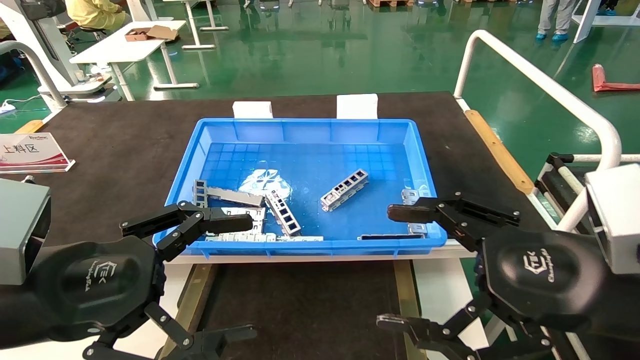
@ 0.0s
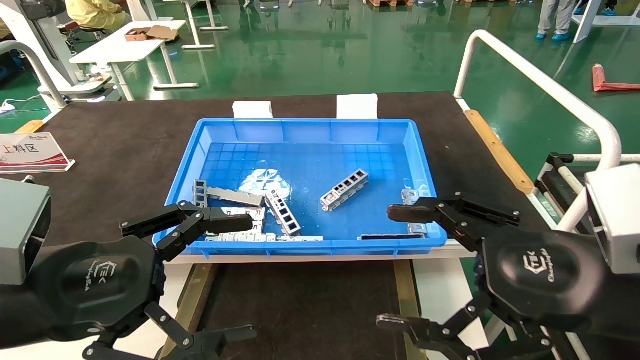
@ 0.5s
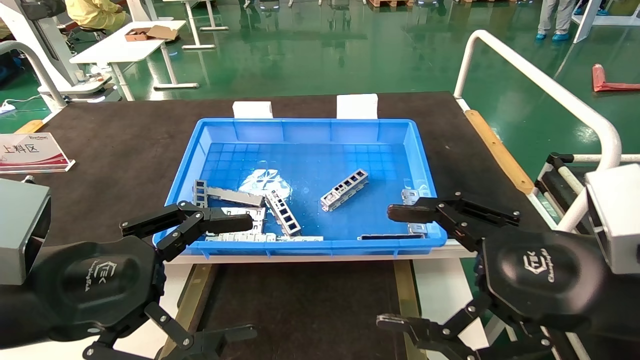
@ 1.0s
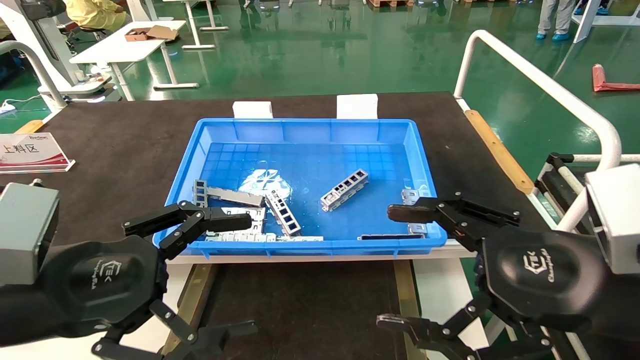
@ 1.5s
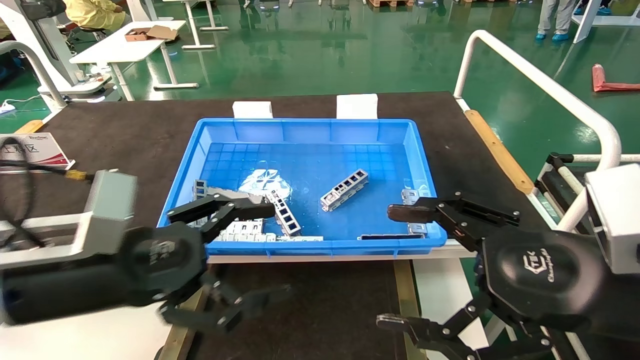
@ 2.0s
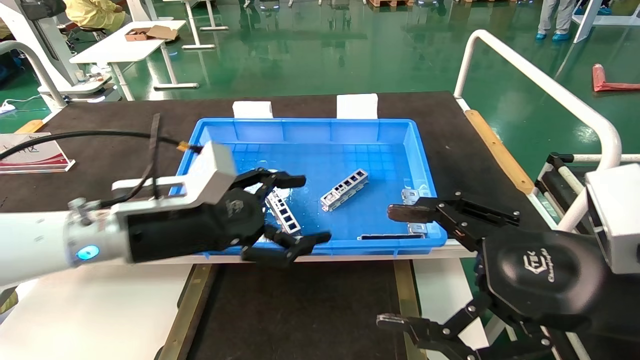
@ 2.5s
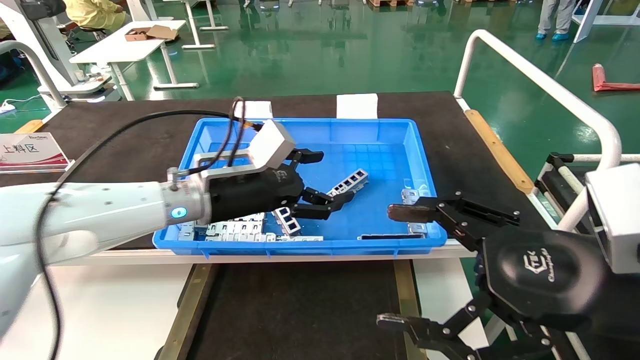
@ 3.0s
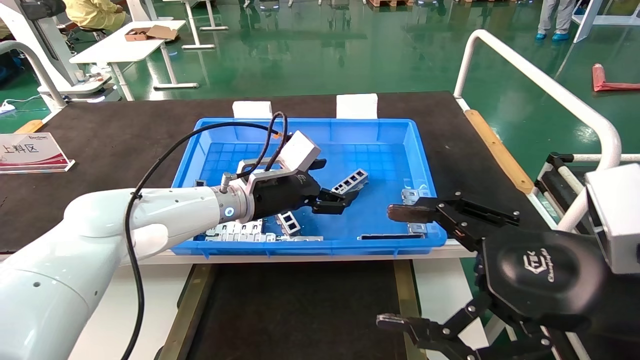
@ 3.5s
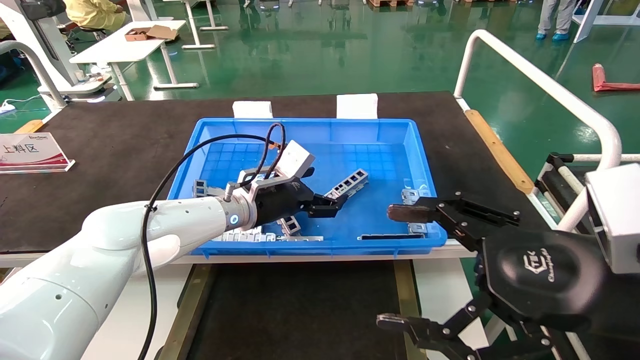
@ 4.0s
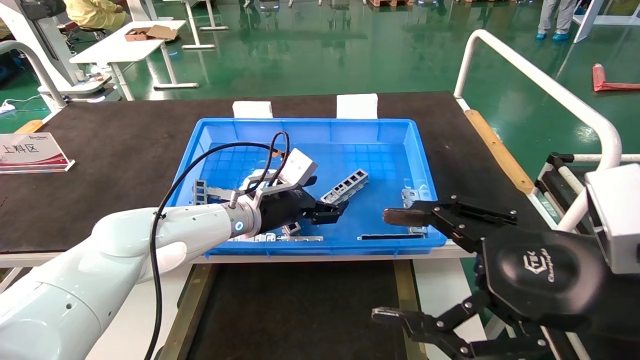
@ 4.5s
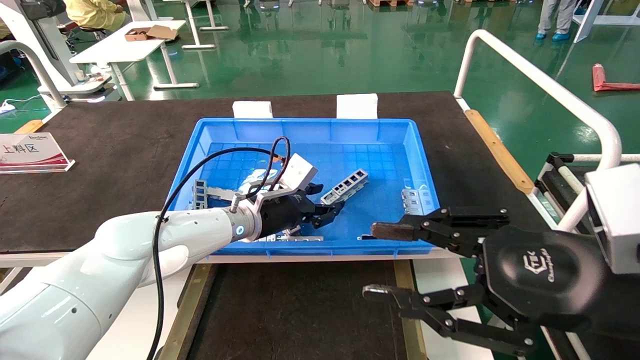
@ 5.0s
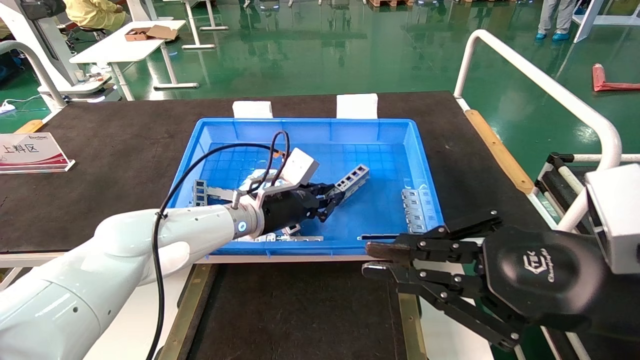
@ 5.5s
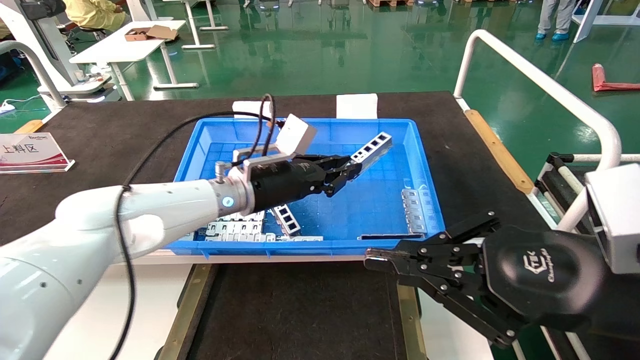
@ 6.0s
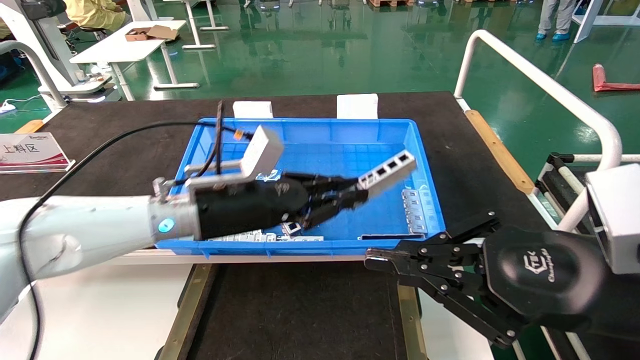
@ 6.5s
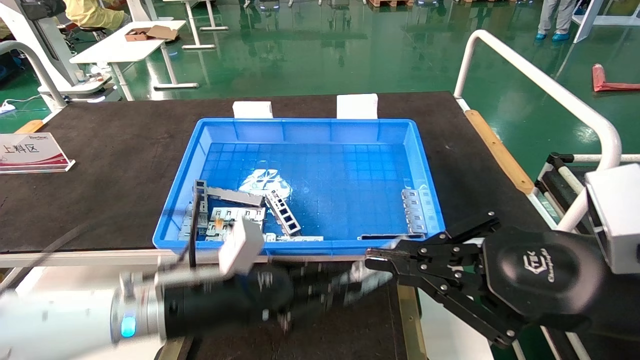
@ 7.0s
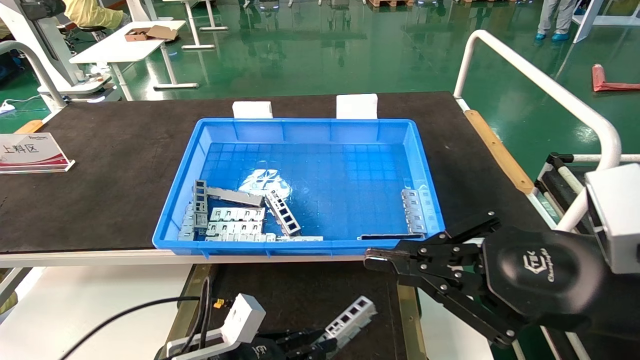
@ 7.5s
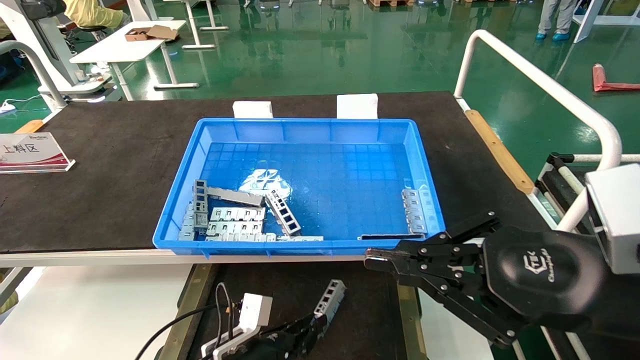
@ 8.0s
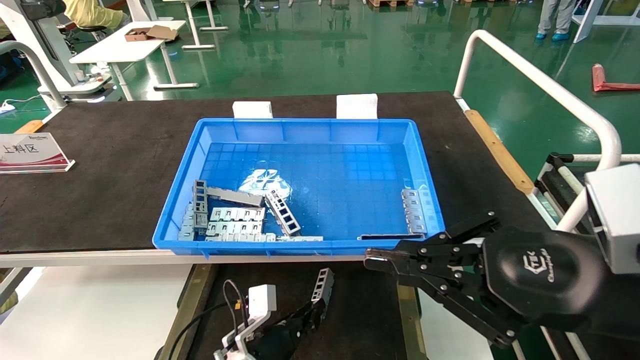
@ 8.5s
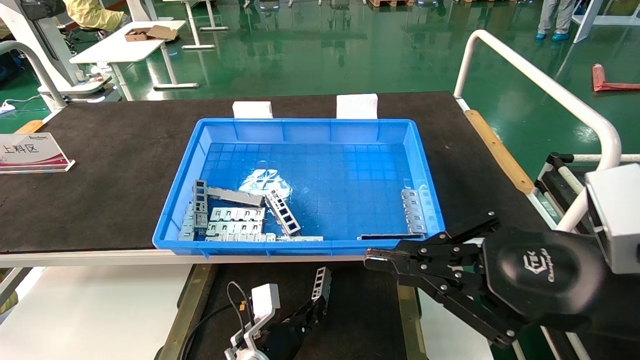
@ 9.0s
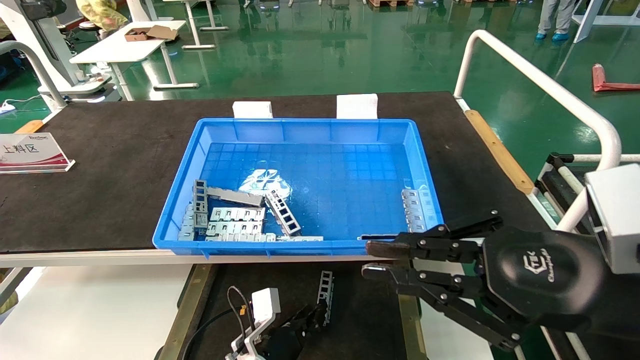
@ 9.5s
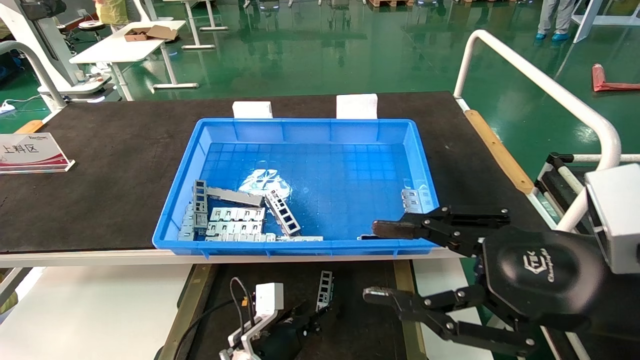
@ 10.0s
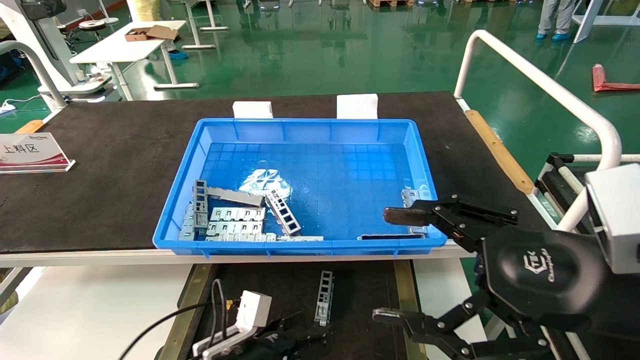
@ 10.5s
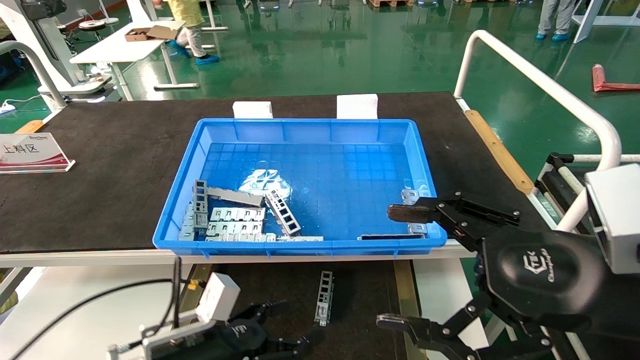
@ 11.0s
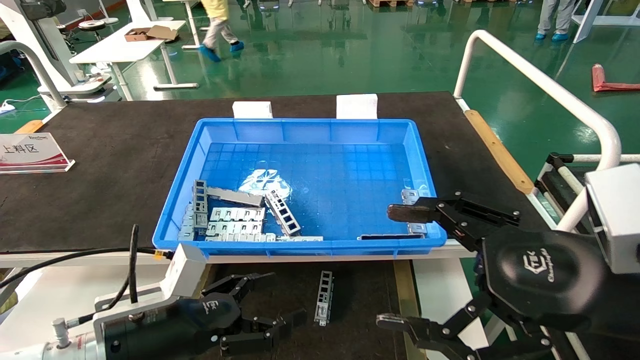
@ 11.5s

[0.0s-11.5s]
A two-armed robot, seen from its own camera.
Task of the whole recording: Grasp the part with one hand and place it on the black container.
Step, 2.0s to 6.0s: Pick up the front USB bracket from the feeding area.
Step, 6.5s to 9.5s: Place the front USB bracket into the box.
0.0s to 2.0s: The left gripper moves forward, some 5 cm.
2.0s to 4.0s: The left gripper travels forward and to the right by roughly 25 cm.
4.0s to 6.0s: The left gripper closes its fingers. Meanwhile the right gripper closes its fingers.
6.0s to 7.5s: The left gripper goes roughly 25 cm downward and backward.
7.5s to 9.5s: The left gripper travels downward, forward and to the right by roughly 15 cm.
9.5s to 11.5s: The right gripper opens, while the left gripper travels upward, to the left and backward by about 25 cm, and opens its fingers.

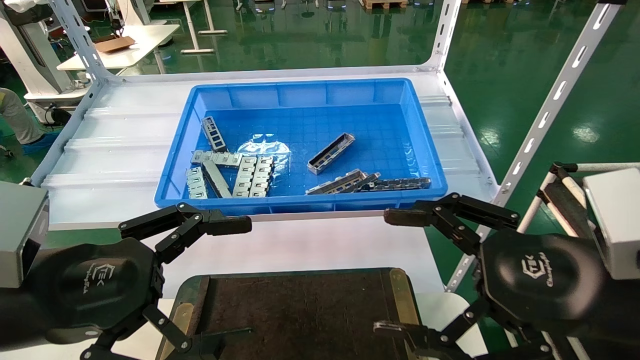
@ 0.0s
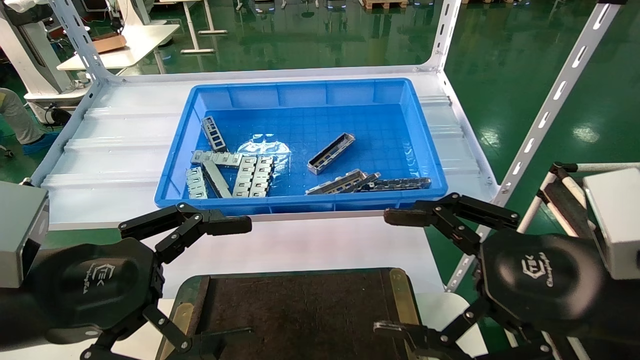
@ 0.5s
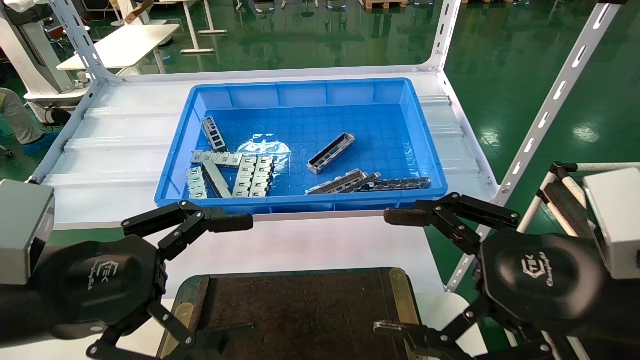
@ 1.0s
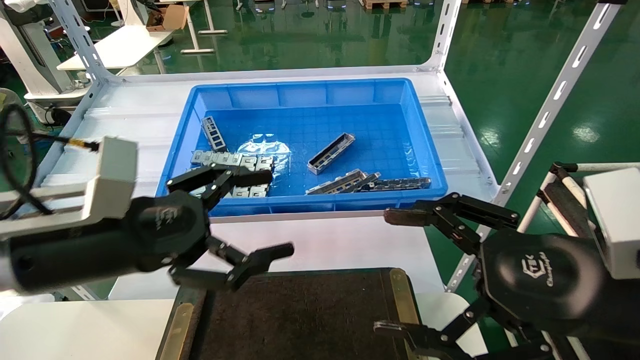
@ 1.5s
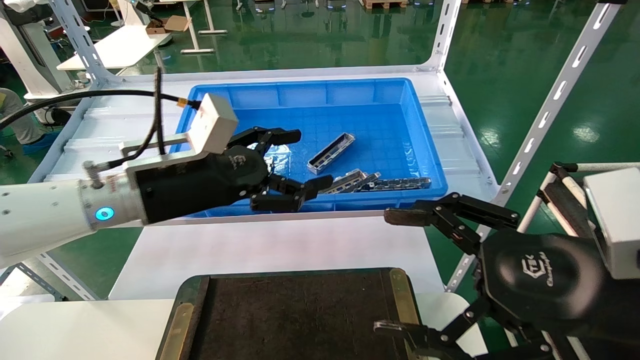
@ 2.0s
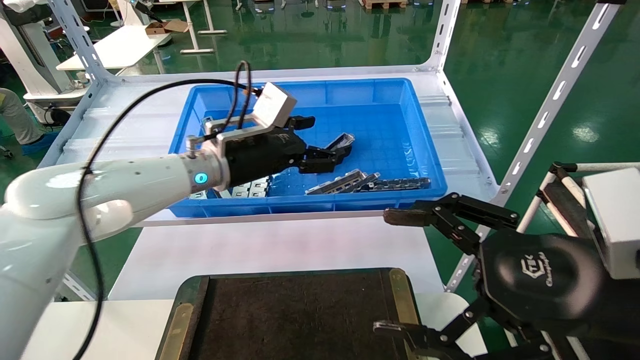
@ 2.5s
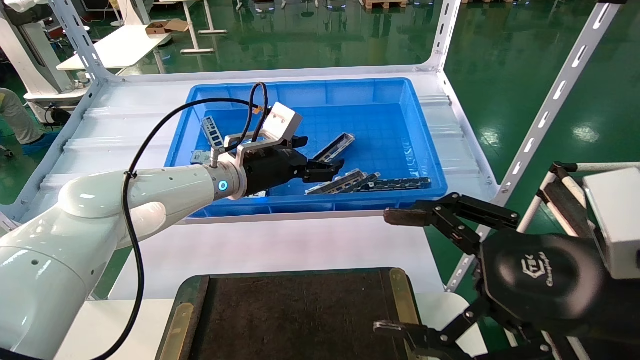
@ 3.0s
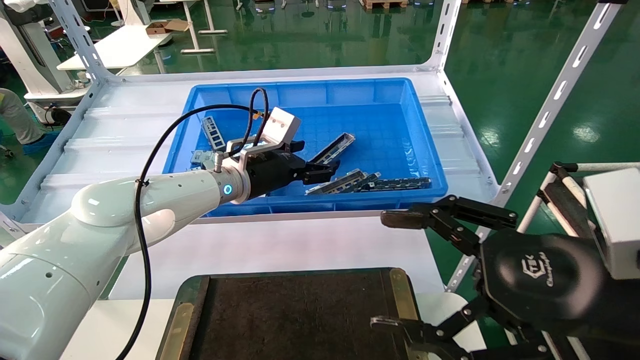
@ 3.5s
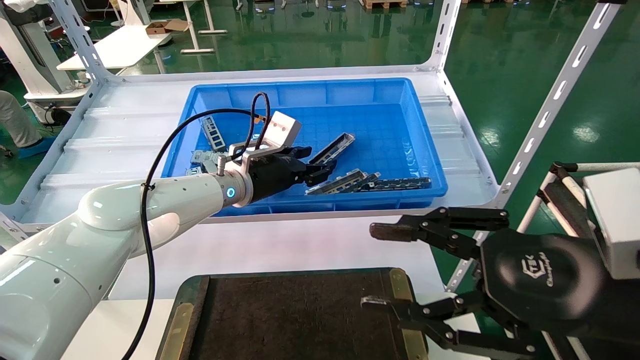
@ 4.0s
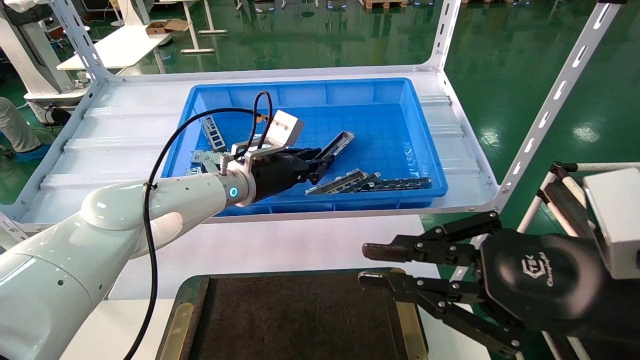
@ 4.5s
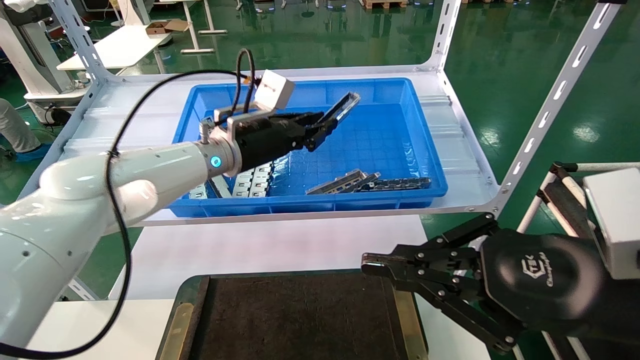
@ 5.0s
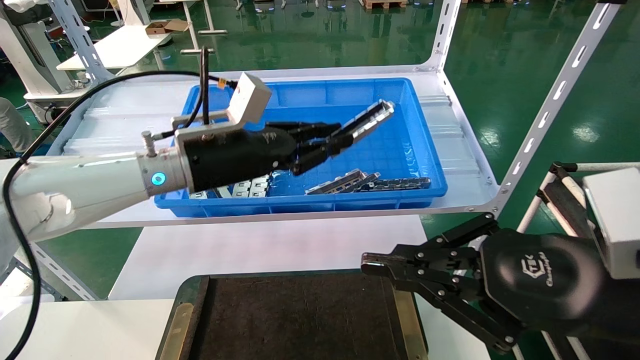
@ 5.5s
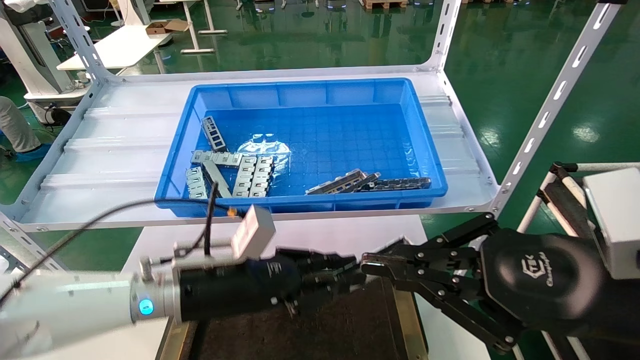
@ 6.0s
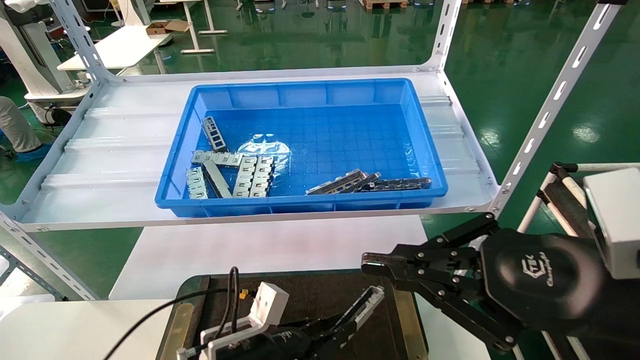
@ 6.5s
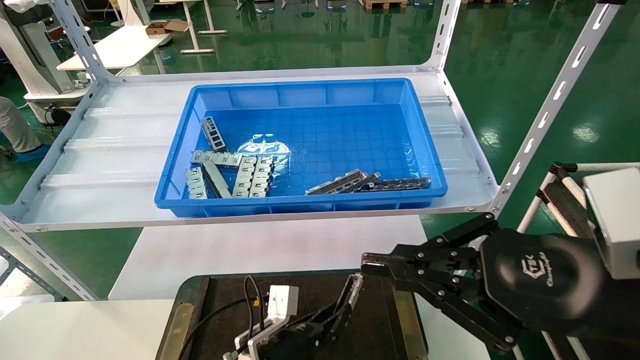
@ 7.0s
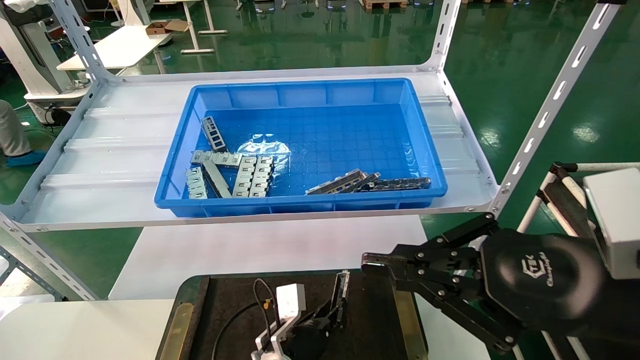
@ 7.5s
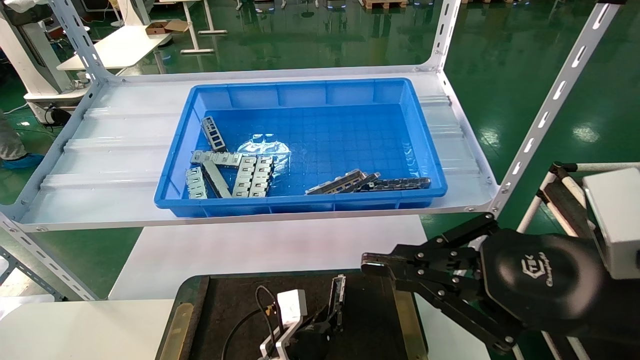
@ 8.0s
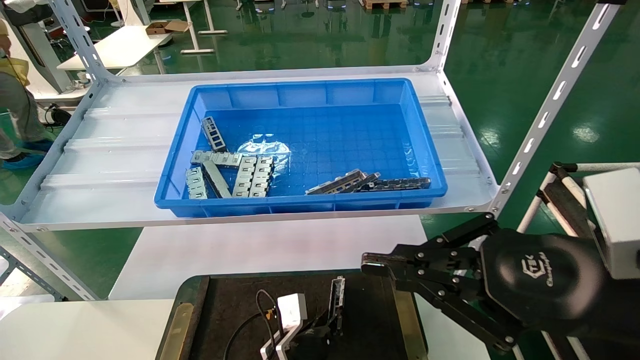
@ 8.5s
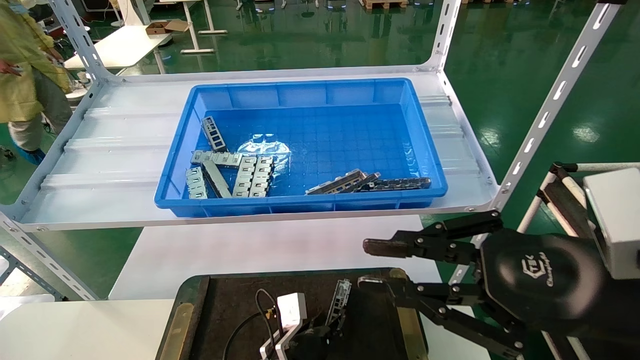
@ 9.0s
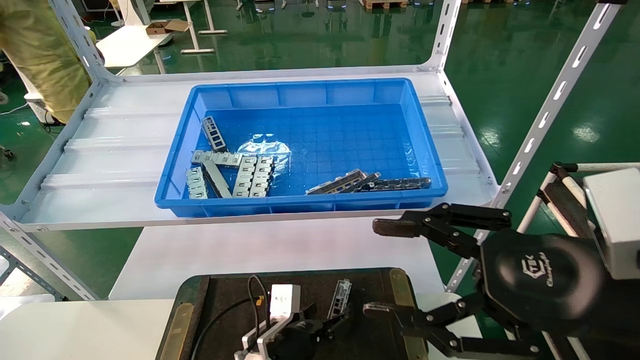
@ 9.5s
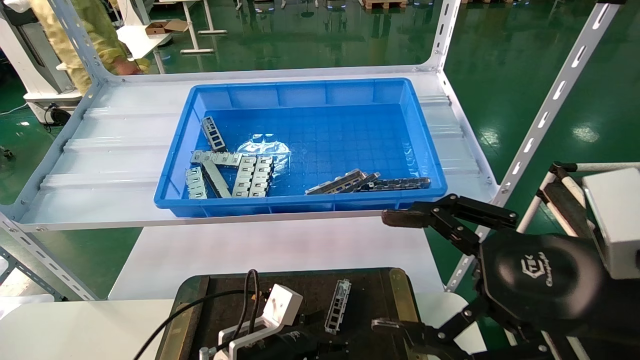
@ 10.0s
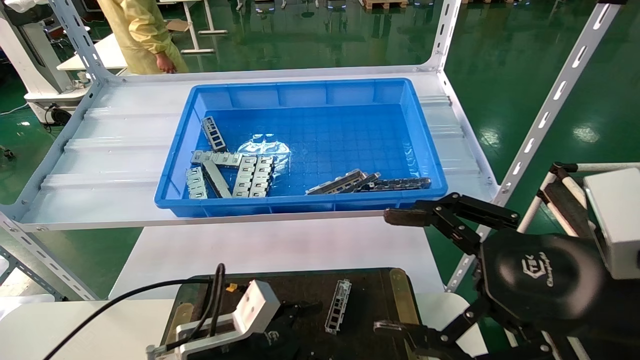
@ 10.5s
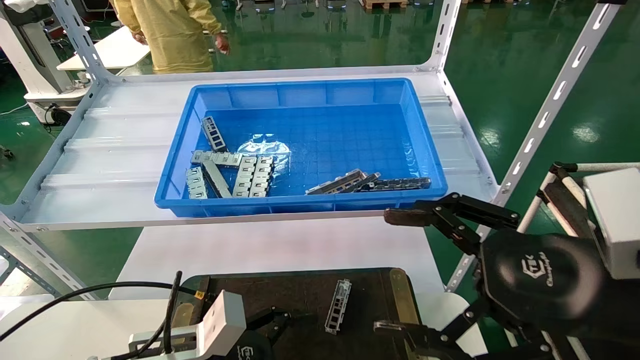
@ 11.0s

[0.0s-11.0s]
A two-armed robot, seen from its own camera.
Task of the whole recording: Grasp the part with one hand and place it on the black container.
Step, 1.5s to 4.5s: Pick up the front USB bracket from the feeding area.
Step, 5.0s to 9.0s: Place the front USB bracket into the box.
0.0s to 2.0s: The left gripper goes some 20 cm forward and to the right.
2.0s to 3.5s: The left gripper is displaced forward and to the right by approximately 15 cm.
3.5s to 5.5s: The right gripper closes up. Meanwhile the left gripper goes some 10 cm backward, and closes its fingers.
5.5s to 7.5s: The left gripper is displaced downward by some 30 cm.
7.5s to 9.0s: There are only small adjustments of the grippers.
9.0s to 11.0s: The right gripper opens its fingers. Meanwhile the left gripper shifts some 20 cm upward, to the left and backward, and opens its fingers.
